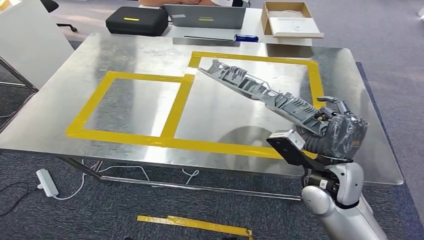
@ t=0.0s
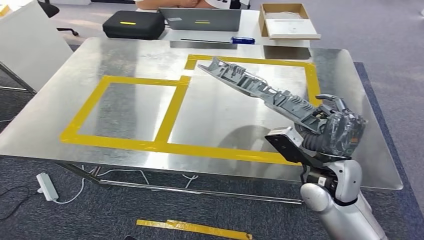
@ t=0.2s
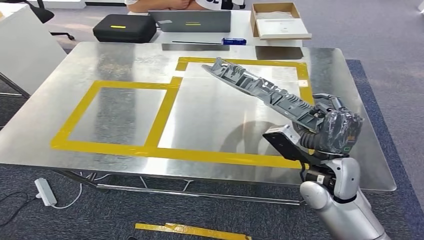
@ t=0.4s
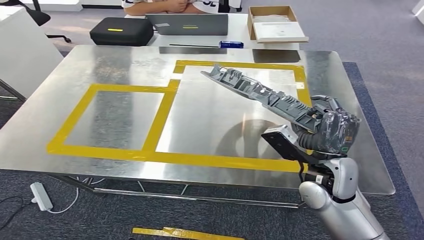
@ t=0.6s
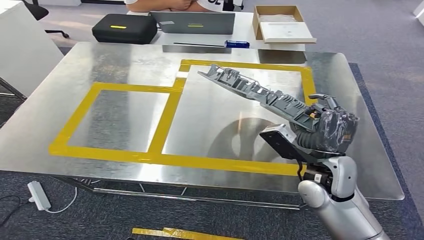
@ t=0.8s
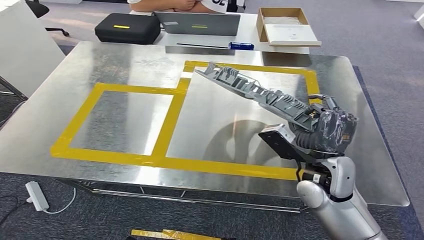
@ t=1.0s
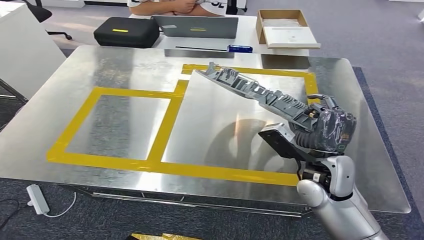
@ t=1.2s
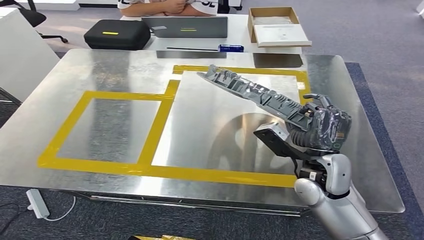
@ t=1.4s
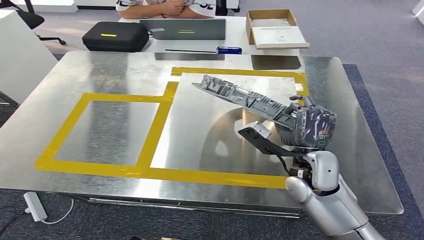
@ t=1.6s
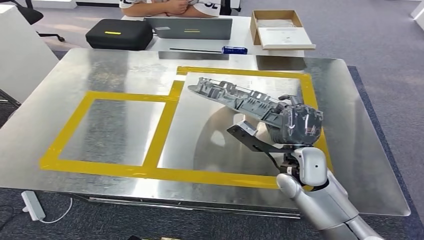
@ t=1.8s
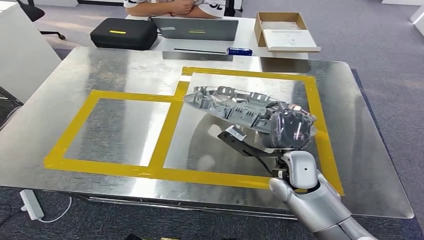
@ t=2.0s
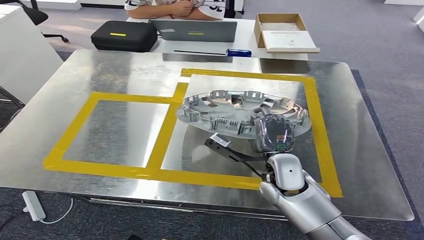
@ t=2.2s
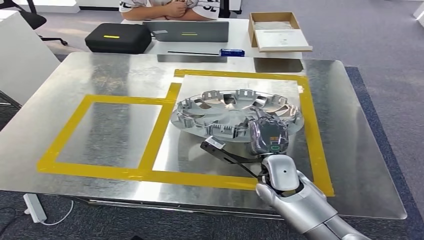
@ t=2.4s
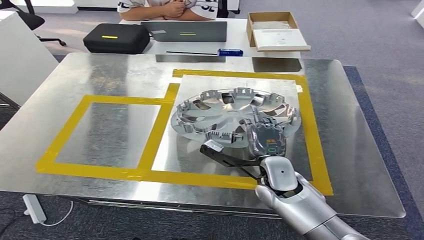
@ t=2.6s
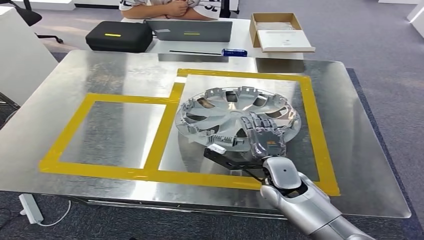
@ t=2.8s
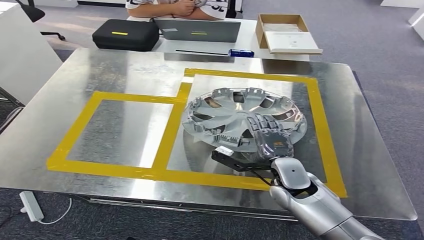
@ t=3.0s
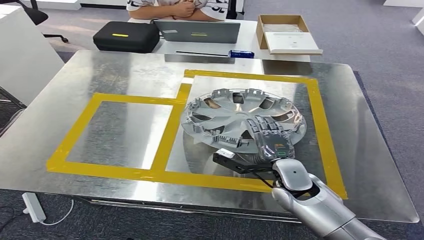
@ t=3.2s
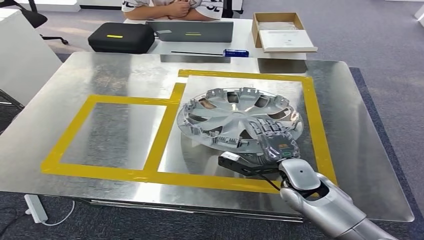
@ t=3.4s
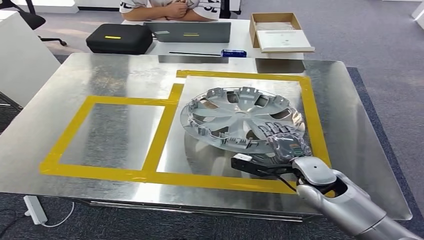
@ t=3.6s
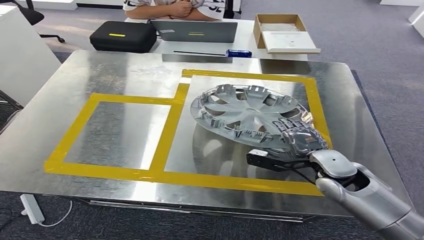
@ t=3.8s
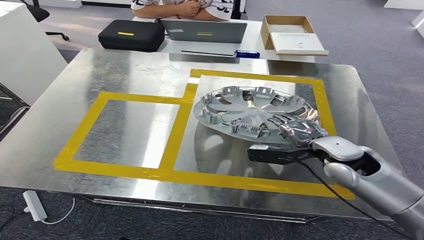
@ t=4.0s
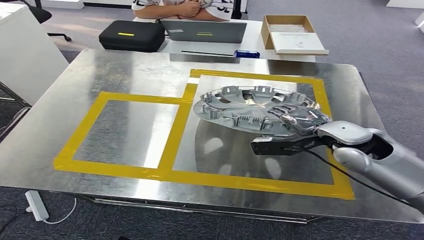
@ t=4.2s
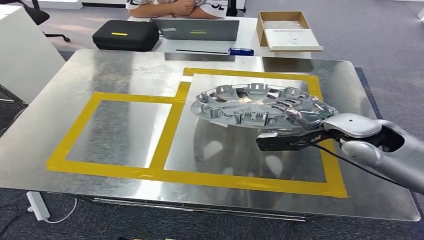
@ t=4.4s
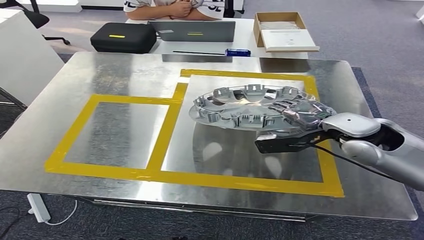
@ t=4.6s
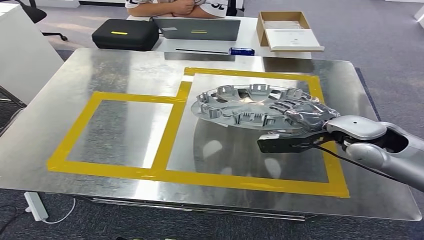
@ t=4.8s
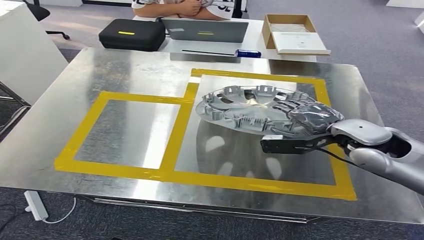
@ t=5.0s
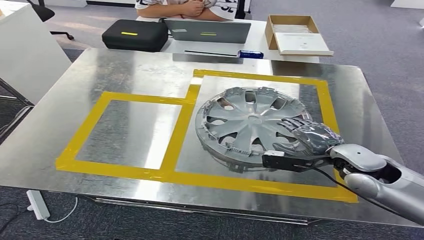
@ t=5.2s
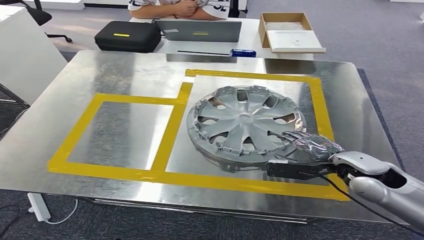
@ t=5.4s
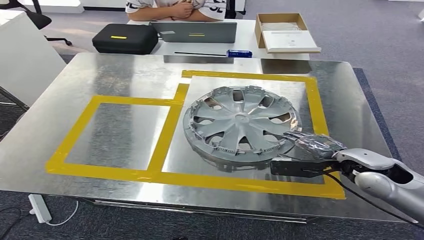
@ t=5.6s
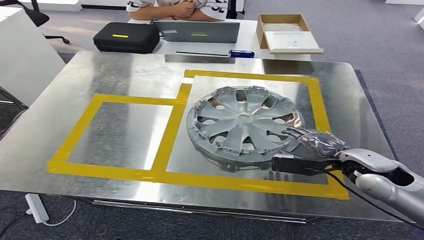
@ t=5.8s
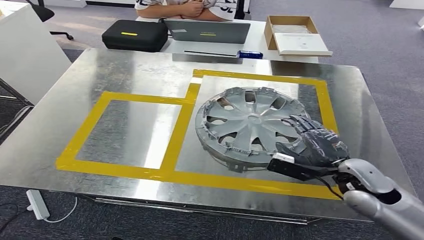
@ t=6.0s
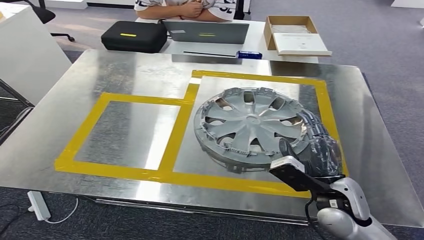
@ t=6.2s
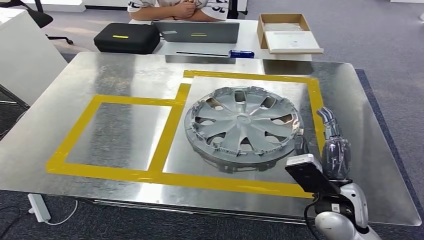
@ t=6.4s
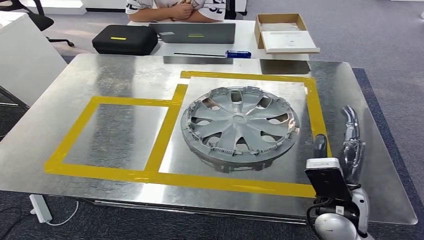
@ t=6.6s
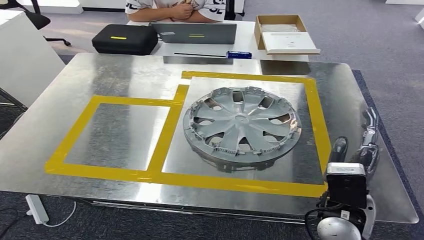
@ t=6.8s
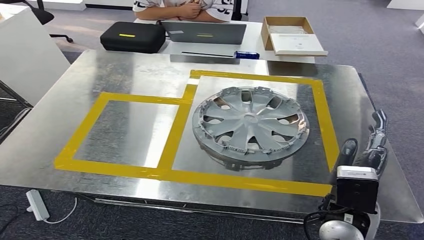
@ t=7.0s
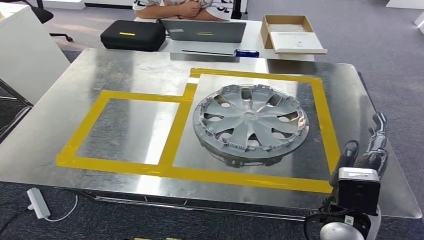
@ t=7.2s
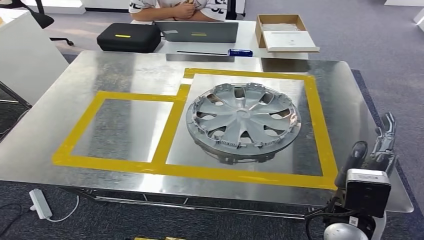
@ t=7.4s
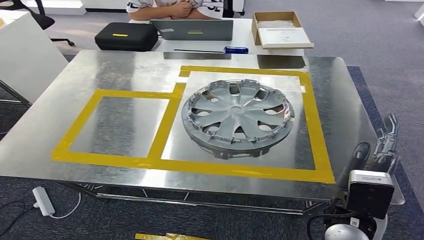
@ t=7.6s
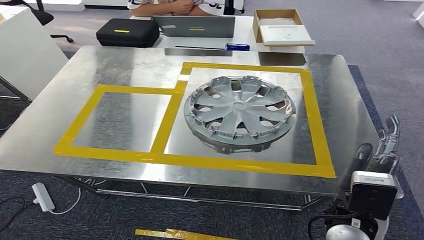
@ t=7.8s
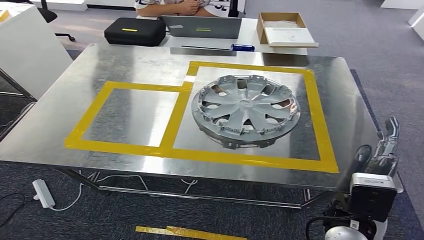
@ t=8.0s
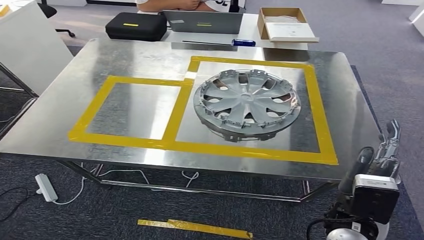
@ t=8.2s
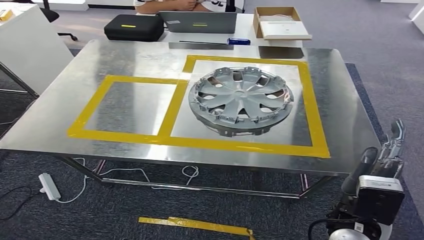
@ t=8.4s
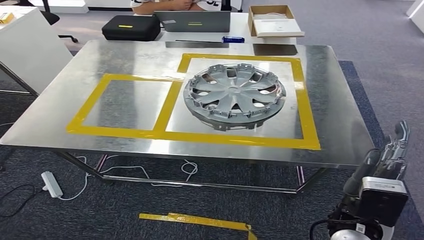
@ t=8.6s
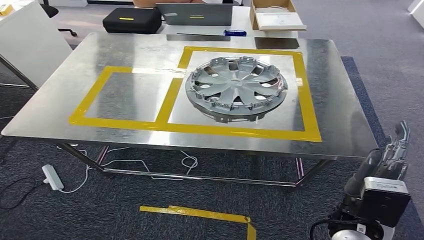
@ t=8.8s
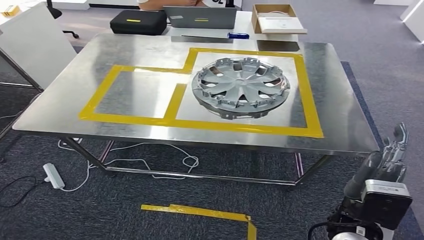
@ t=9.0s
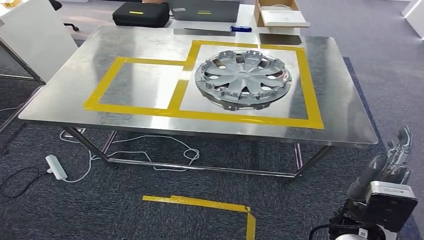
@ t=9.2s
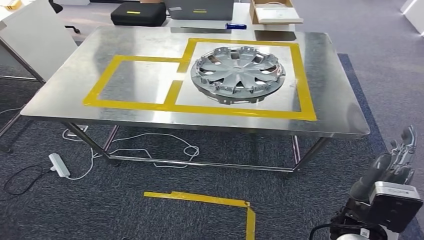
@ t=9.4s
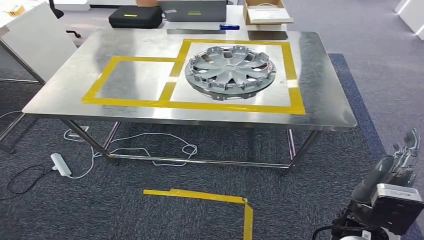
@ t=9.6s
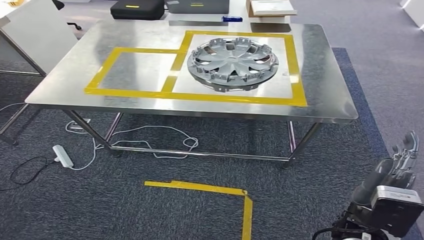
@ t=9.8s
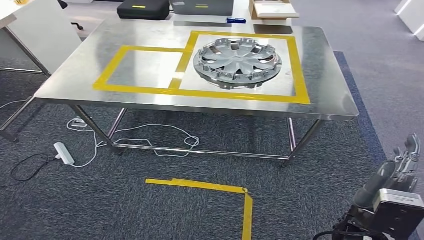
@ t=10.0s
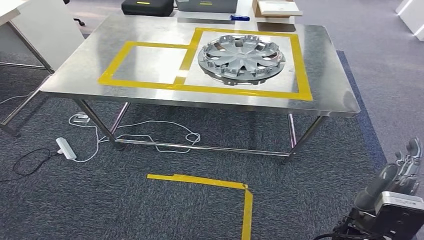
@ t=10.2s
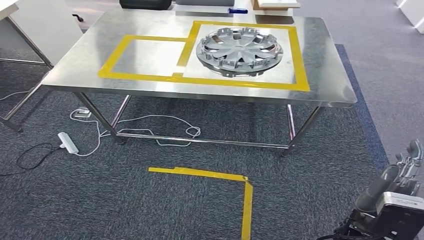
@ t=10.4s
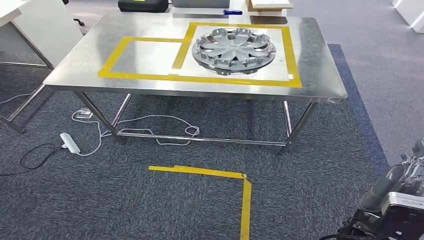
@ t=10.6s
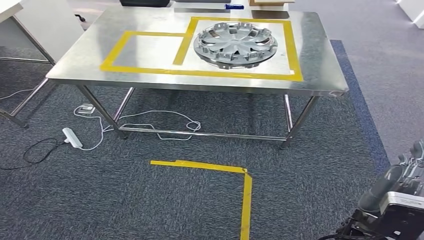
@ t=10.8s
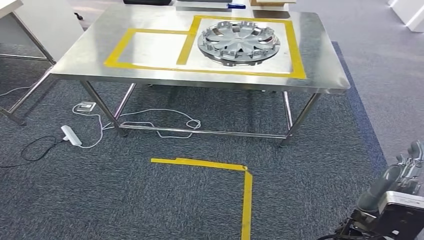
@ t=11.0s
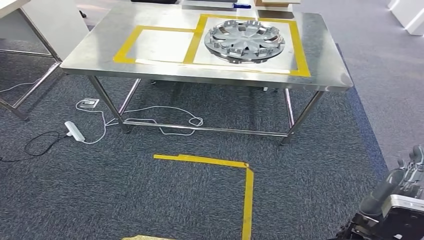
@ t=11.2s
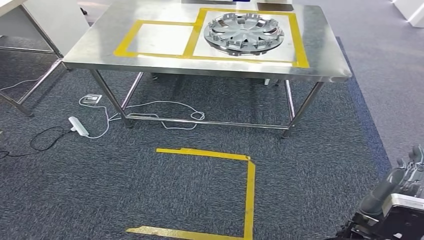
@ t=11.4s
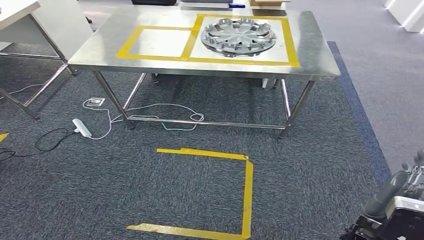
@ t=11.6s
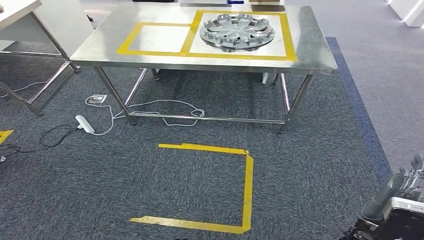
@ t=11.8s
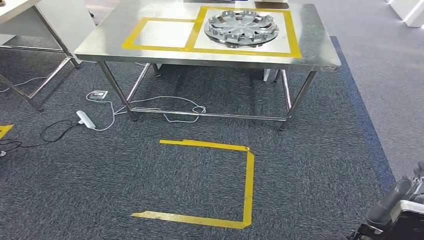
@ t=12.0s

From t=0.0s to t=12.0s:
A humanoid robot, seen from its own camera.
Step, from t=0.0s to t=8.2s: Insert the small parts into the corresponding holes on the workbench.

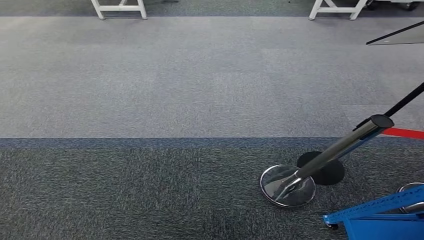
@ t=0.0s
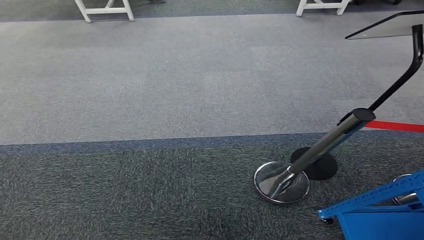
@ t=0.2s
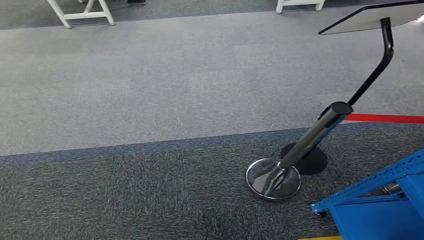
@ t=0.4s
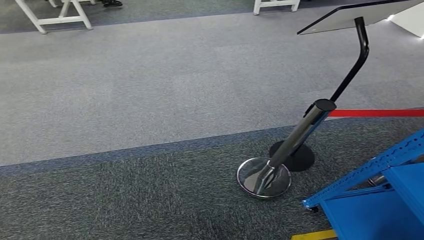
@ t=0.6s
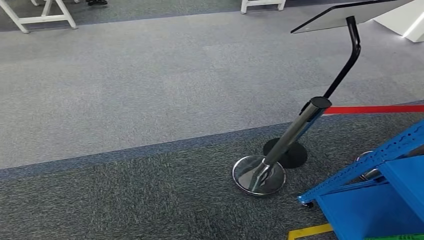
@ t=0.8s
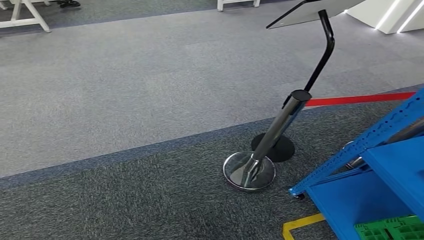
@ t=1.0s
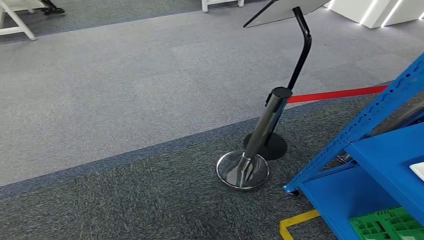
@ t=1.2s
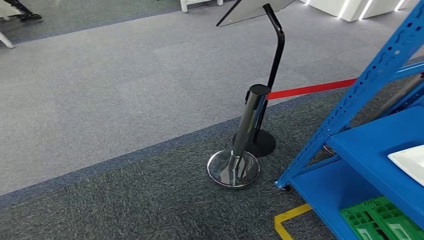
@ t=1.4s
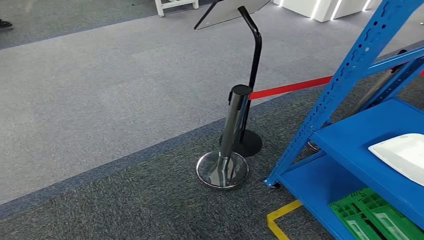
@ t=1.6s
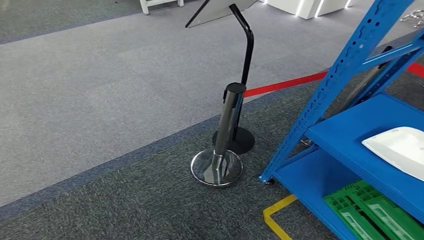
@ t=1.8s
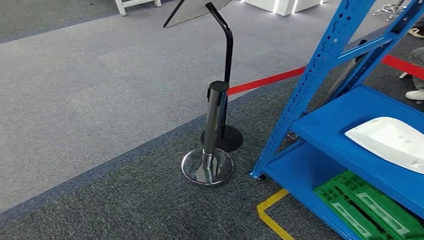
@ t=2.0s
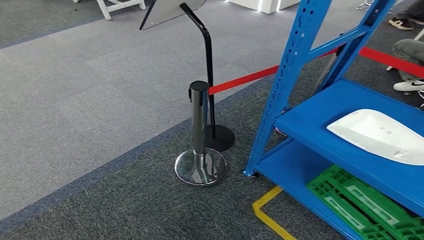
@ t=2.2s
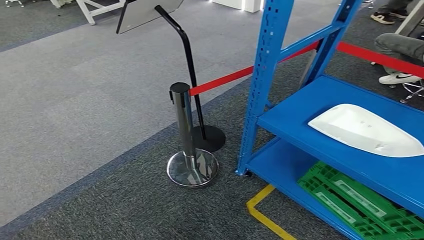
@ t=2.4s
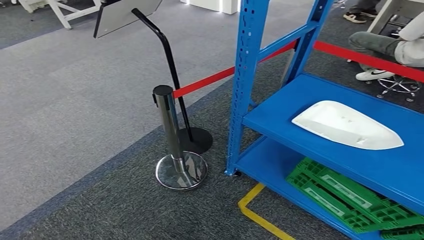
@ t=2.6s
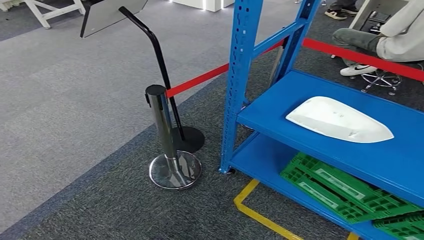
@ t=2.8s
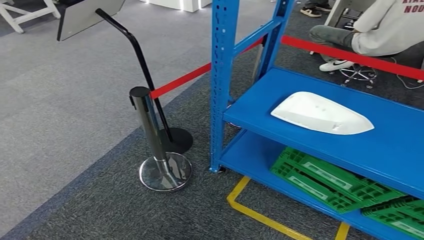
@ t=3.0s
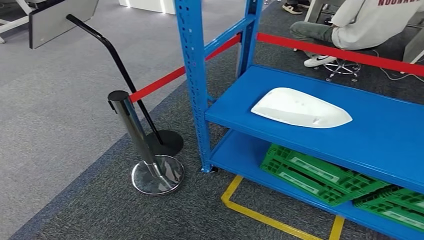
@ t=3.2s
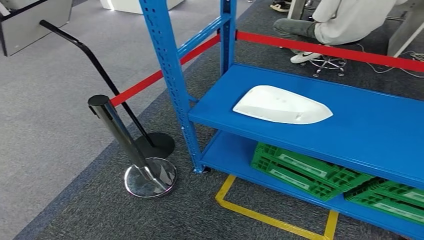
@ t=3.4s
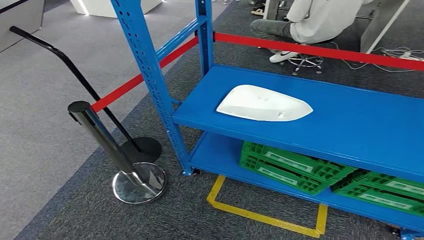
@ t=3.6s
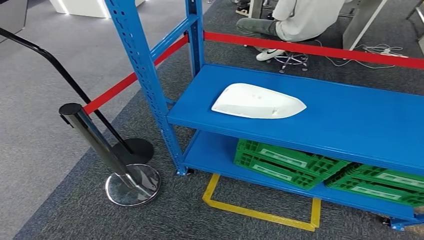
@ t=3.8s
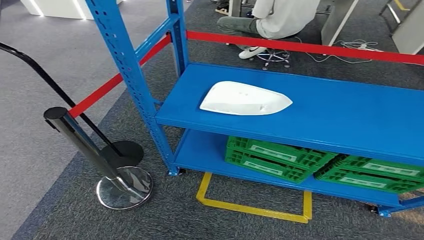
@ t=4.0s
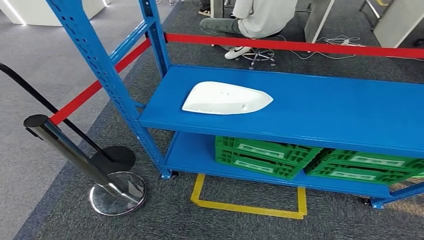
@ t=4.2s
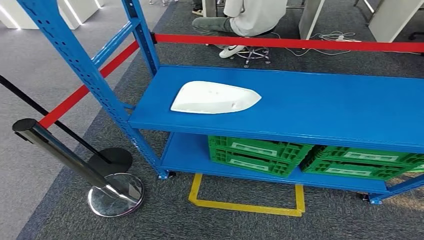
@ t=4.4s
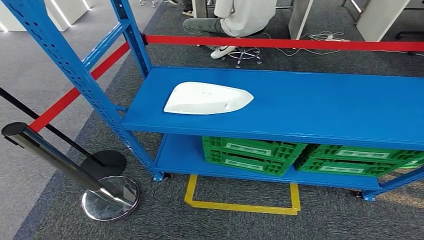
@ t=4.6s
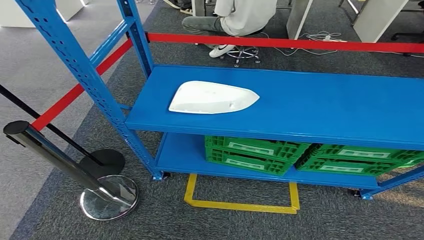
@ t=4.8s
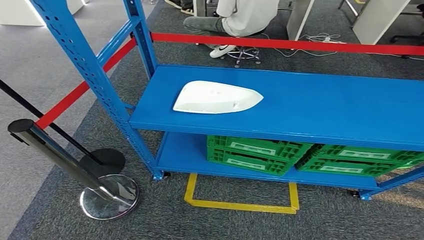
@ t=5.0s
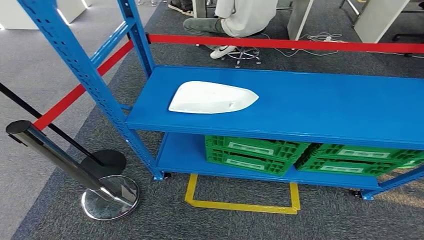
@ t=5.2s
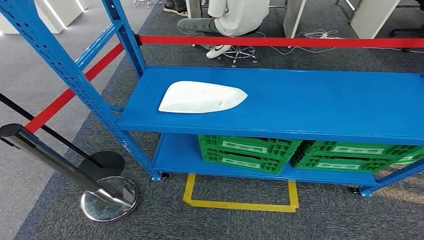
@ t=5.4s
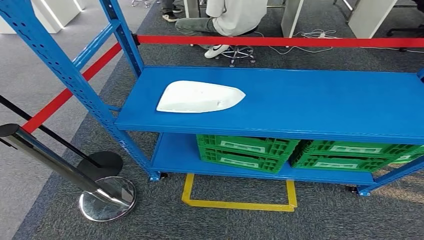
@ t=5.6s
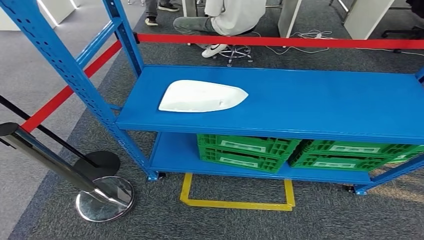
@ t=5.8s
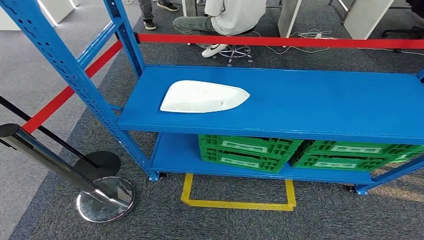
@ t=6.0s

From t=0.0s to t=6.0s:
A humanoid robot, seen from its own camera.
Step, from t=0.0s to t=6.0s: Move to the initial position at the workbench.
